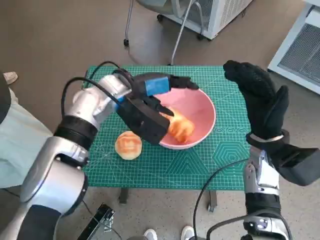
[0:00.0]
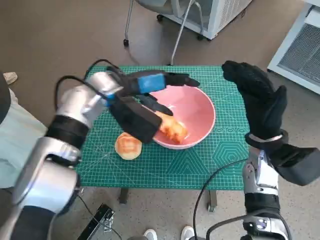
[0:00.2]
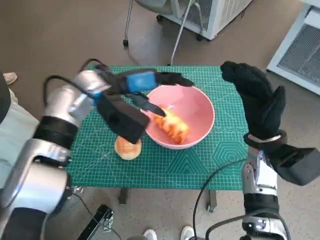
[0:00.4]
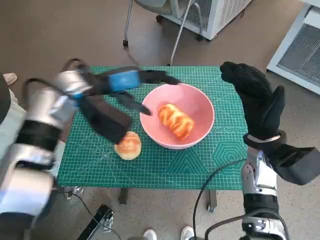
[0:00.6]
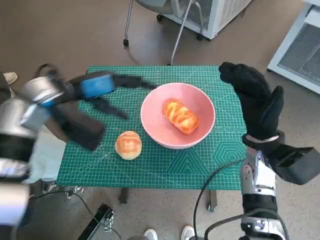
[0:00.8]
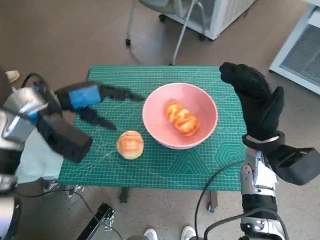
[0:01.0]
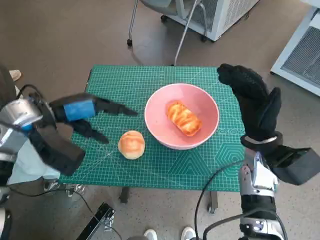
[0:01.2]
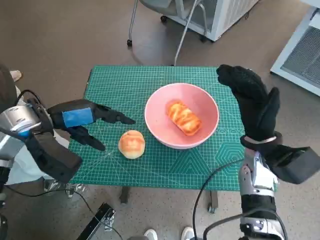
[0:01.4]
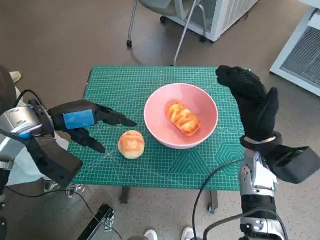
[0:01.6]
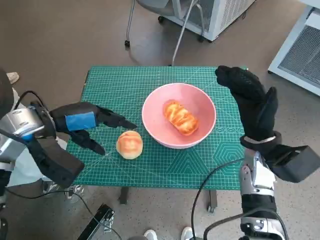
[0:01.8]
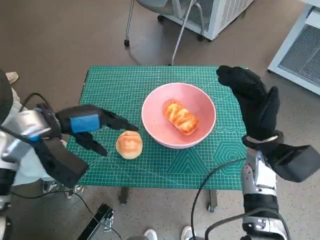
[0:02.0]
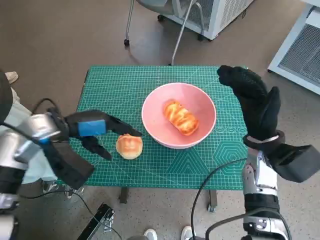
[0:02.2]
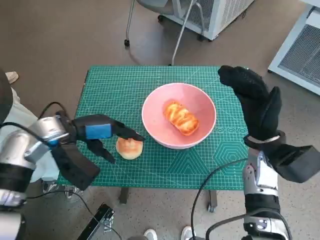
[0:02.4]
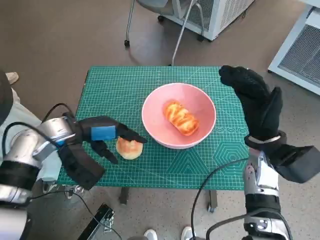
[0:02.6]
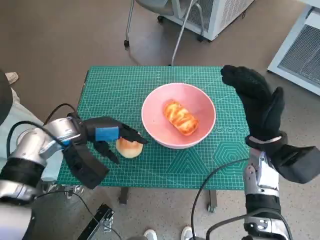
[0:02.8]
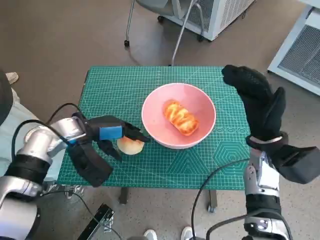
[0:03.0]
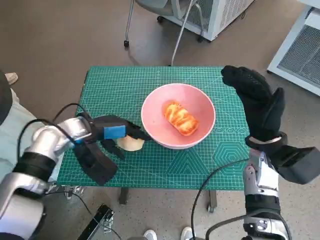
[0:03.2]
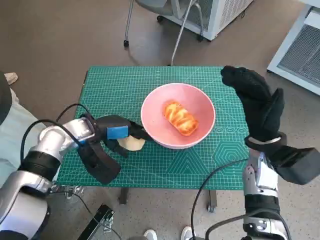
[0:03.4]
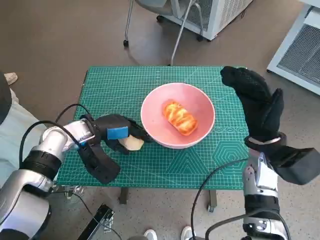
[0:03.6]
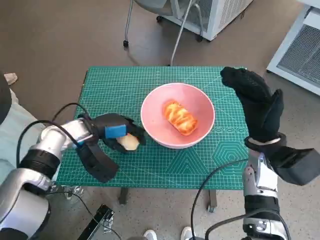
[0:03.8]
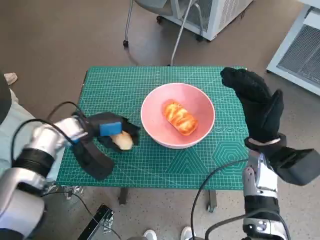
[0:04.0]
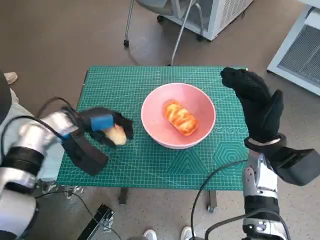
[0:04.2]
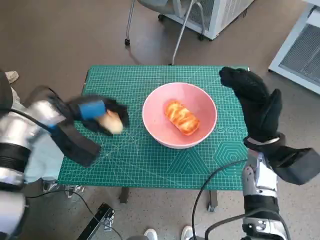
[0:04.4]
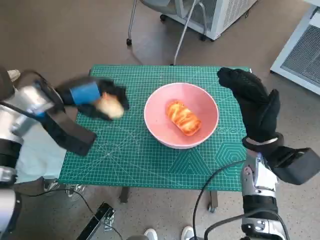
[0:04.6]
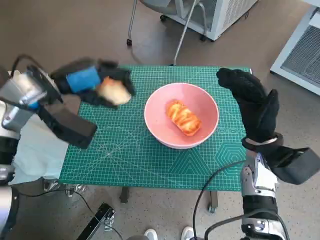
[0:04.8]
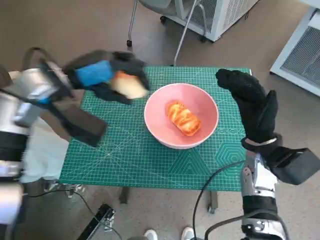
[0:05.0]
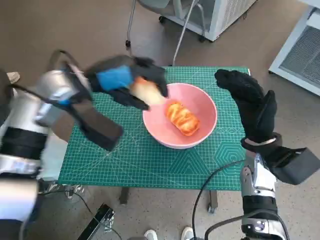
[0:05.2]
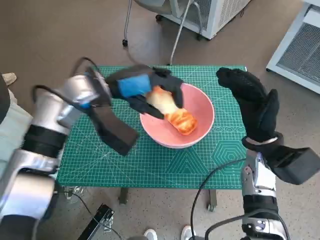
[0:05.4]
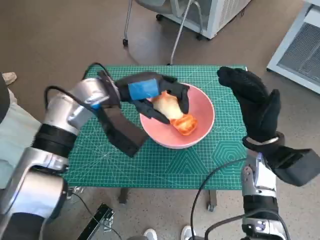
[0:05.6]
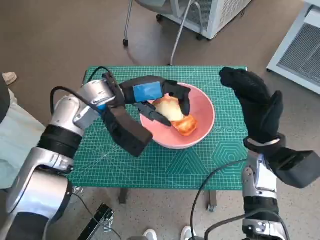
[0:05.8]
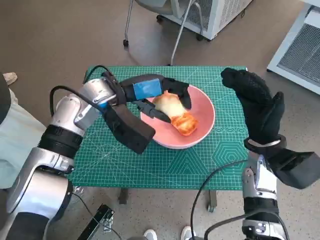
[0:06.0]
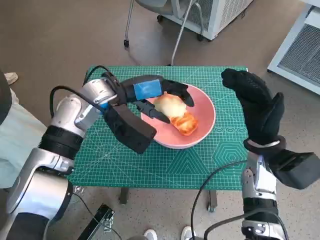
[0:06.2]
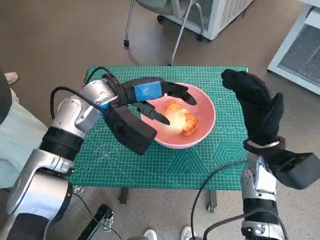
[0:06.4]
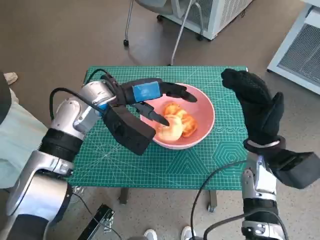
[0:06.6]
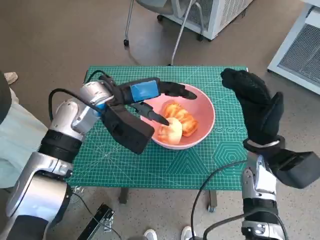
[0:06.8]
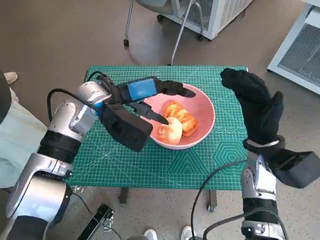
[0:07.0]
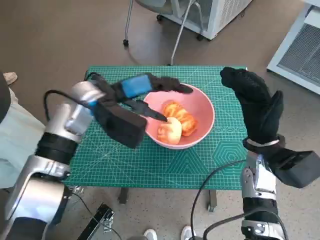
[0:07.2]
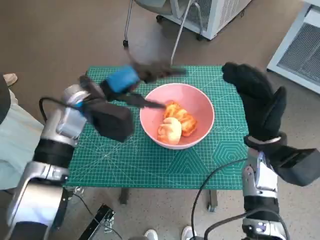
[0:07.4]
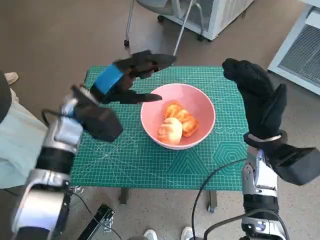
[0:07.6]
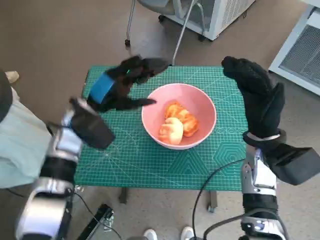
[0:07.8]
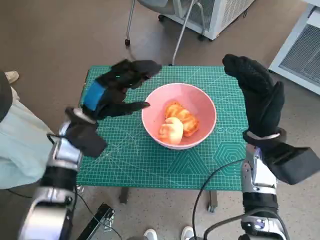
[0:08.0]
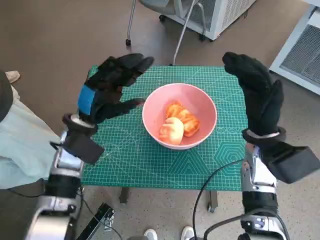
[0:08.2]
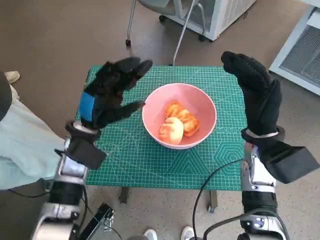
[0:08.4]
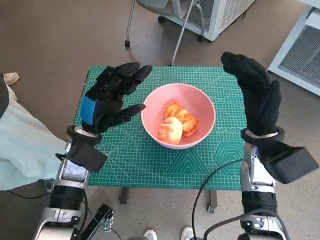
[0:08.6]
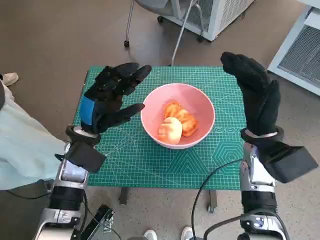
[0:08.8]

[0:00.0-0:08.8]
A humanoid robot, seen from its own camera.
Task of the whole recording: Push the bowl to the center of the table and put the bread into the bowl.
Step, 0:00.0 to 0:03.6: Grasp the round bread with left hand.
Step, 0:03.8 to 0:07.2: Place the round bread in pink bowl with left hand.
0:00.0 to 0:01.4: The left hand shifts roughly 15 cm to the left and backward.
0:01.4 to 0:03.0: The left hand is displaced downward by some 5 cm.
0:03.0 to 0:04.4: The hands move only a little.
0:04.4 to 0:05.8: The left hand moves to the right, approximately 10 cm.
0:07.4 to 0:08.8: The left hand shifts about 10 cm downward and backward.

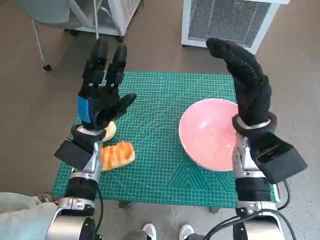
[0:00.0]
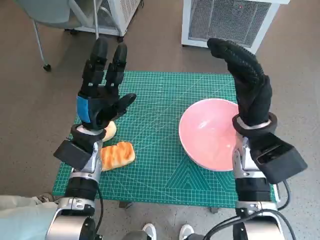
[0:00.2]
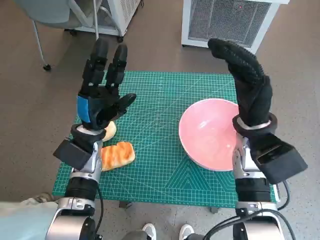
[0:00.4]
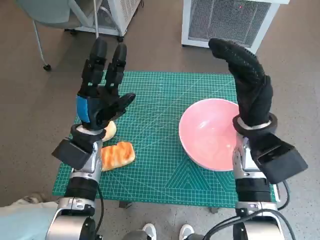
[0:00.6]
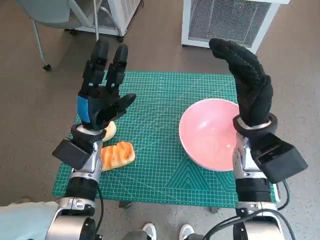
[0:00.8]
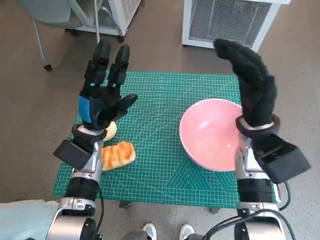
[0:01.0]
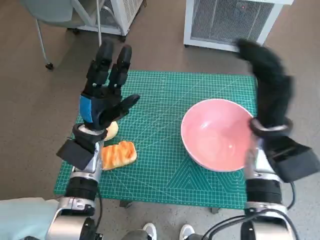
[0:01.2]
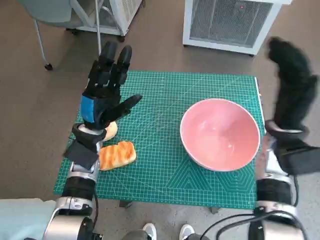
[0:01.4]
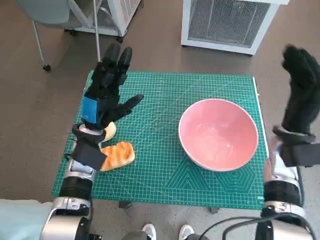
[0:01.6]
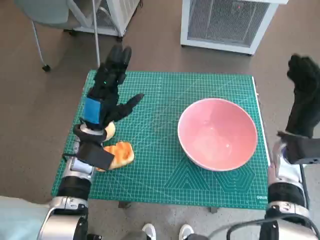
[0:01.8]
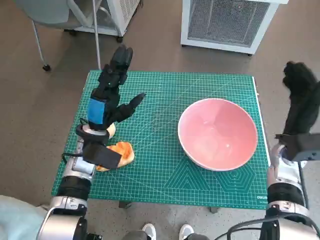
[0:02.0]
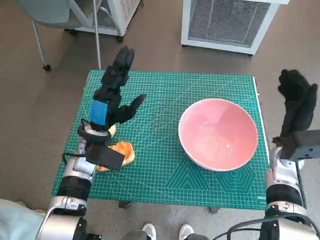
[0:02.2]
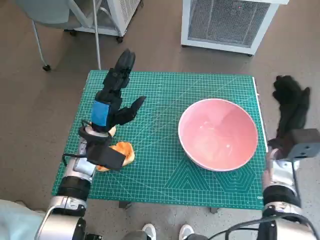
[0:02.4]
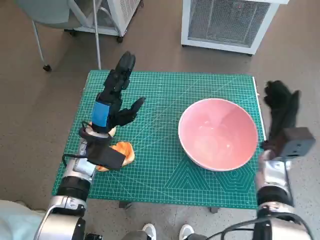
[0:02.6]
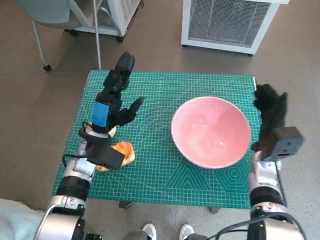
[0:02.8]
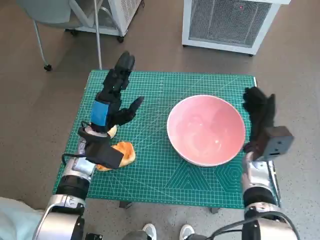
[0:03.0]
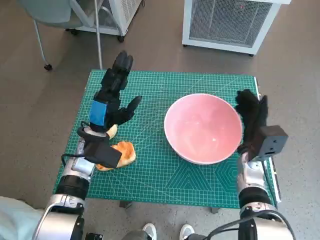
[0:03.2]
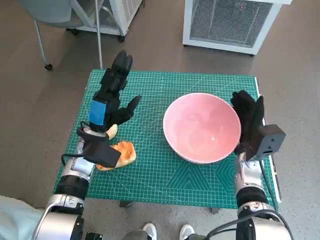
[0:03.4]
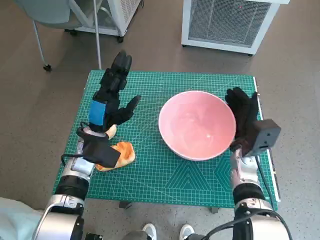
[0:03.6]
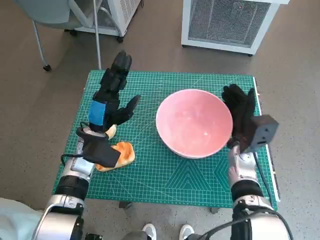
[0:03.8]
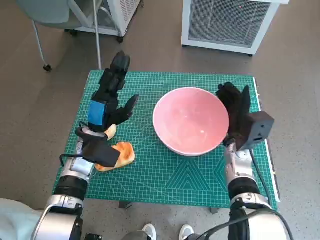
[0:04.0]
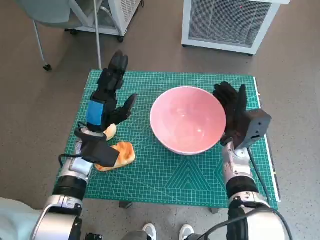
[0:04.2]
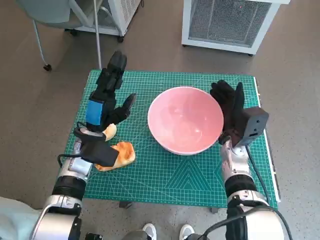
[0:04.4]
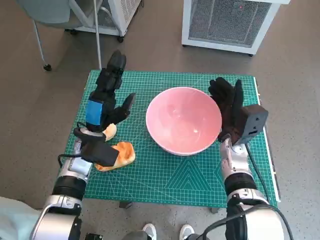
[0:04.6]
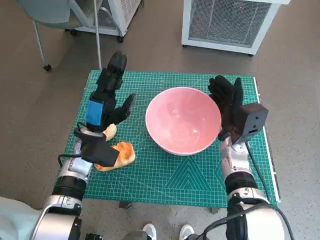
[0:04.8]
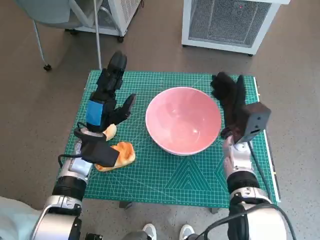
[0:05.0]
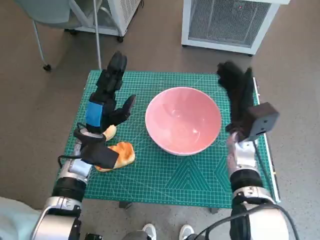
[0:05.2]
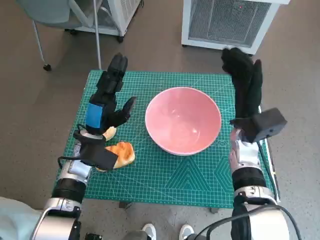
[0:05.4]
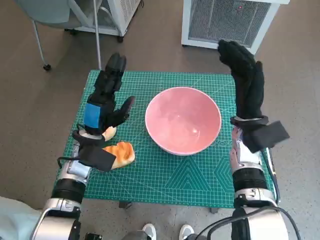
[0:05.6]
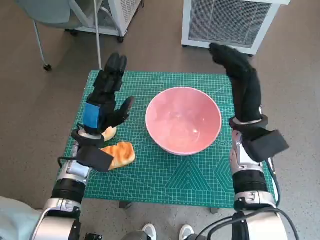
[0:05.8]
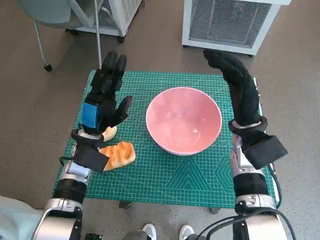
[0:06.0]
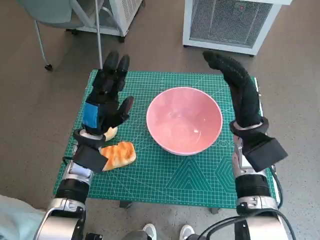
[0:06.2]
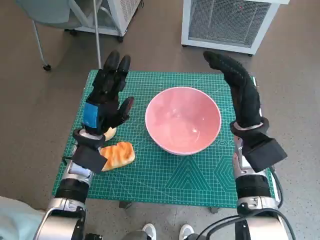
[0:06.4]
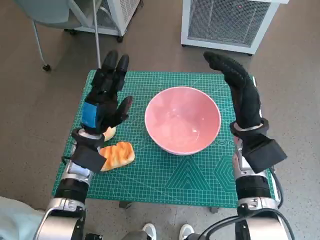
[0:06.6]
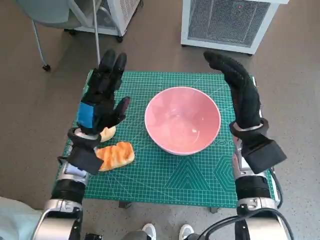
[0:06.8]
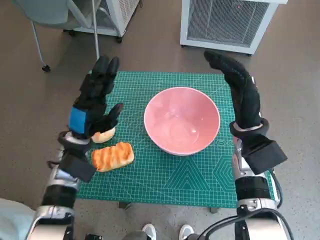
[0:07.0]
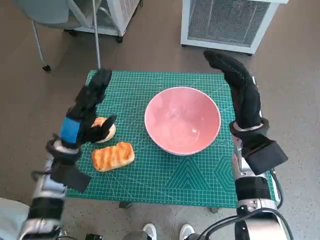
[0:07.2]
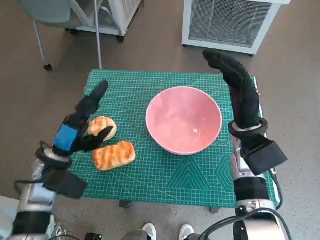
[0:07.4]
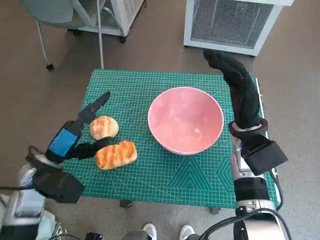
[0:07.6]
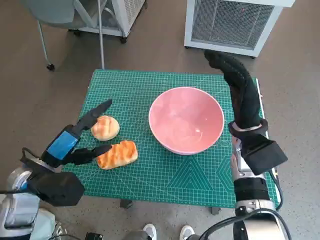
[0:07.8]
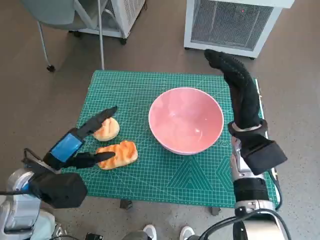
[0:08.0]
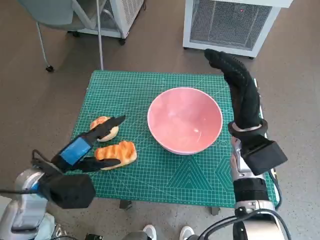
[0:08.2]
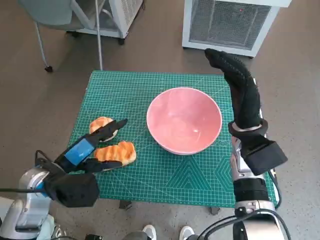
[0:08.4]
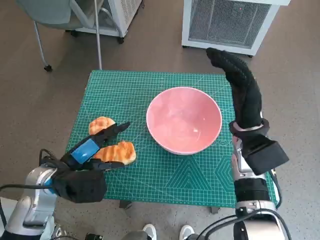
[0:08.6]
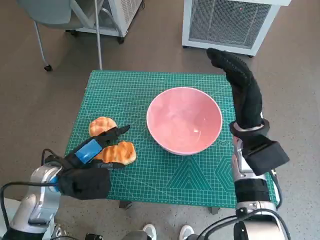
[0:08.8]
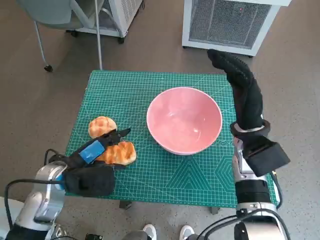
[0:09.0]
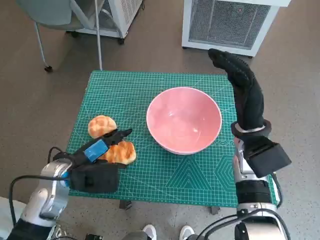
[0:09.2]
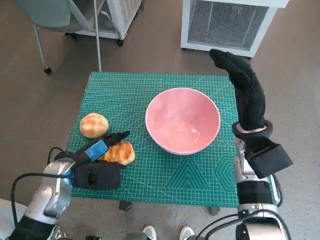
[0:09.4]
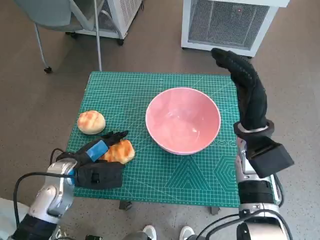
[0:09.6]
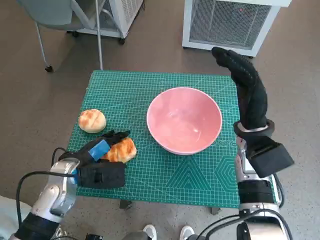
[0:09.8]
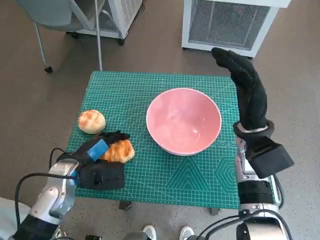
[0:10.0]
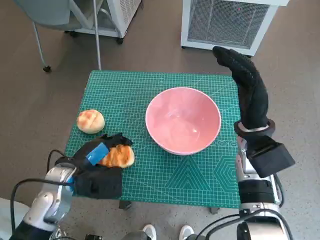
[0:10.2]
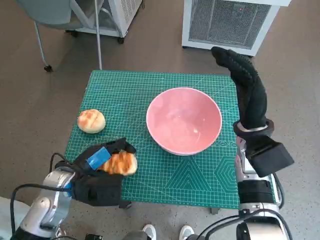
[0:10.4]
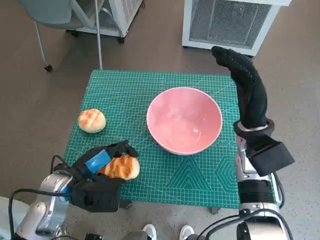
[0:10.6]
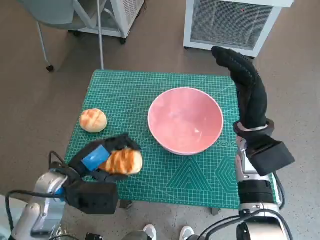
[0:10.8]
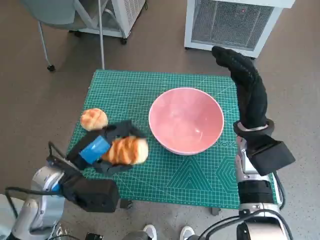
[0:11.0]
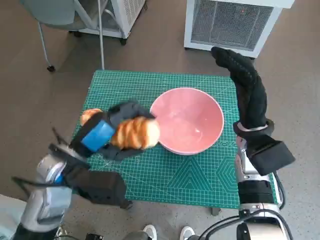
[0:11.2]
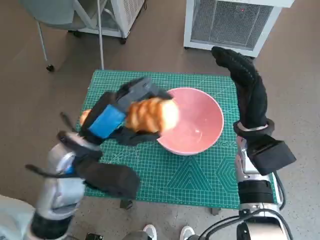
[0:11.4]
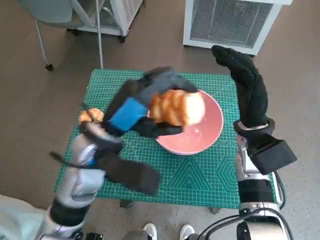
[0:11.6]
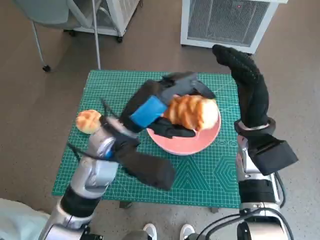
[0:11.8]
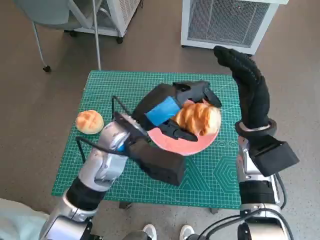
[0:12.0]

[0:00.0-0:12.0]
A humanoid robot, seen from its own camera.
Task of the whole recording: Push the bowl to the center of the table and put the bread into the bowl.
Step, 0:00.0 to 0:05.0: Move the pink bowl to the center of table with right hand.
Step, 0:05.2 to 0:10.0: Grasp the long bread with left hand.
0:01.6 to 0:03.0: The right hand shifts roughly 10 cm downward.
0:03.0 to 0:04.4: The right hand ends up about 5 cm from where it was.
0:04.4 to 0:06.0: The right hand travels upward by about 10 cm.
0:06.0 to 0:07.6: The left hand goes about 10 cm backward and to the left.
0:09.0 to 0:10.4: The hands stay close to where they were, moving slightly.
0:10.4 to 0:12.0: The left hand is displaced to the right, upward and forward by some 15 cm.

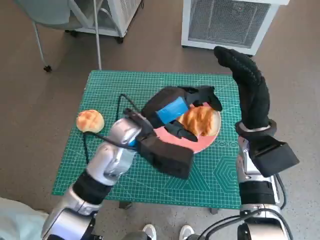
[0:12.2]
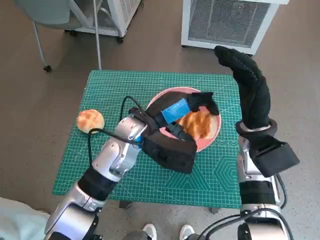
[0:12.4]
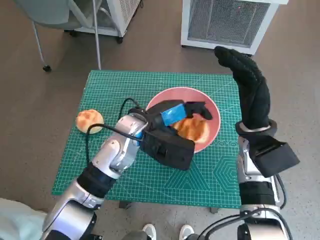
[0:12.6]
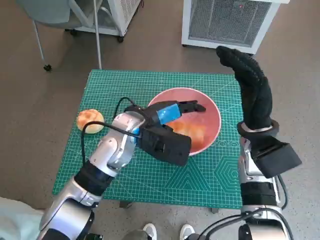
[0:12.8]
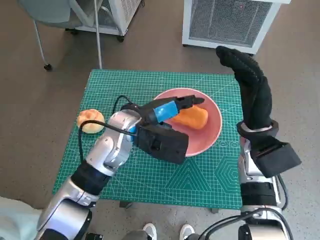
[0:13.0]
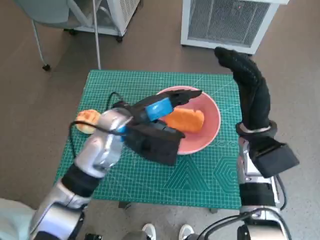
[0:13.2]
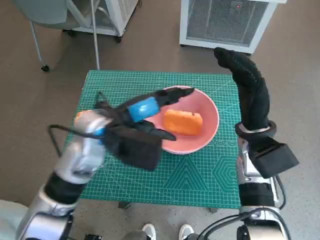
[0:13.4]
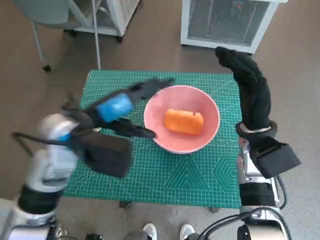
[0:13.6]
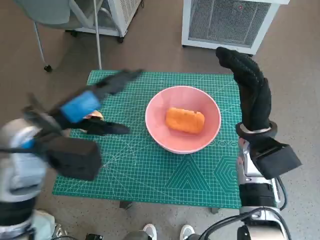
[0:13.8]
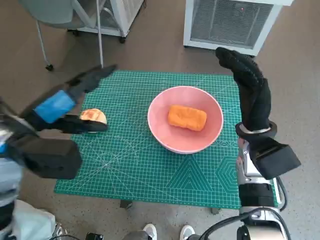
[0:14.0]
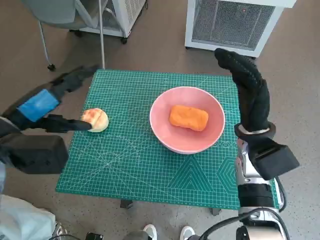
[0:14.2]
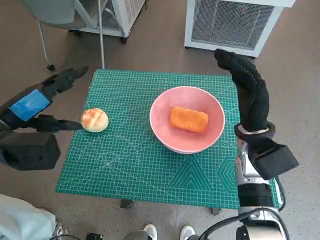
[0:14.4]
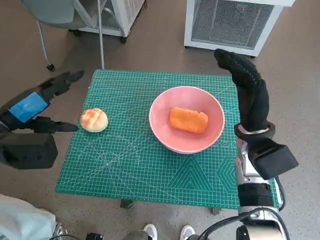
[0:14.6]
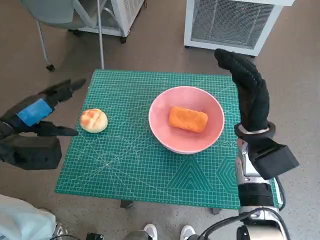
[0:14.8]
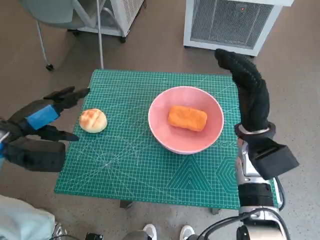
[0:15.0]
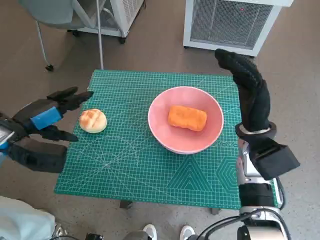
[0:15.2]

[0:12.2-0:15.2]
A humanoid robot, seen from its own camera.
Task of the whole recording: Push the bowl to the center of the table and put the bread into the bowl.
0:12.2 to 0:13.8: The left hand shifts roughly 15 cm to the left and upward.
0:13.8 to 0:15.2: The left hand moves to the left, about 10 cm.
